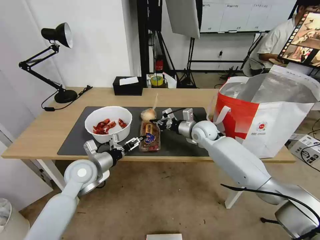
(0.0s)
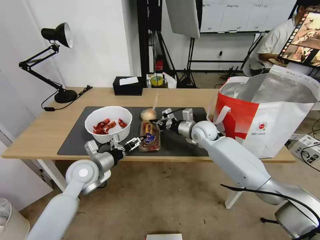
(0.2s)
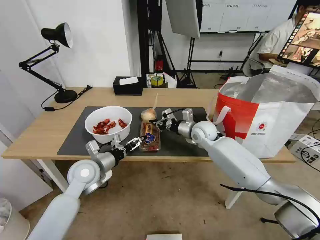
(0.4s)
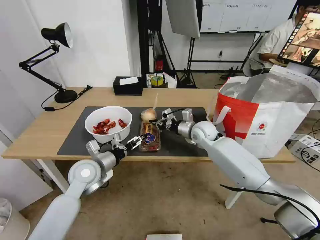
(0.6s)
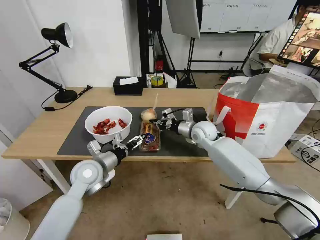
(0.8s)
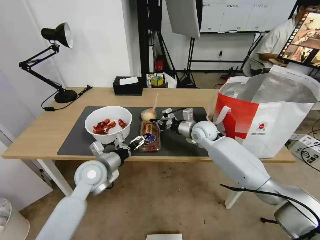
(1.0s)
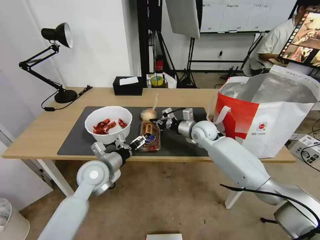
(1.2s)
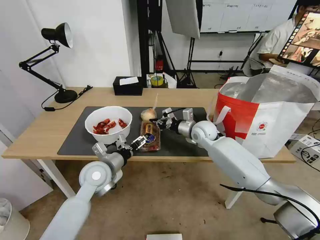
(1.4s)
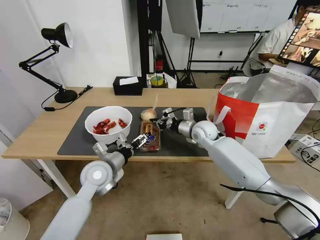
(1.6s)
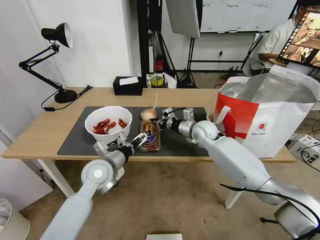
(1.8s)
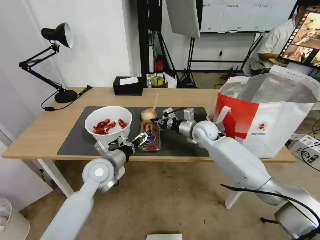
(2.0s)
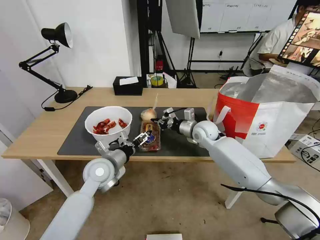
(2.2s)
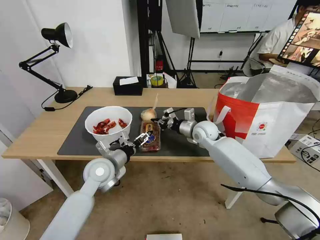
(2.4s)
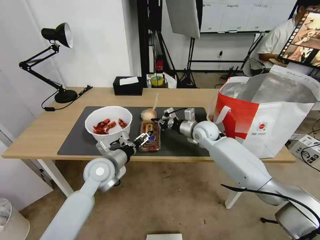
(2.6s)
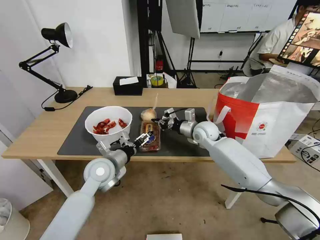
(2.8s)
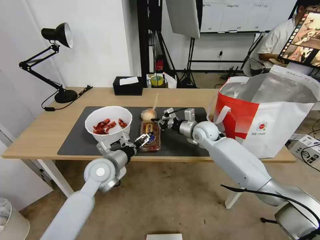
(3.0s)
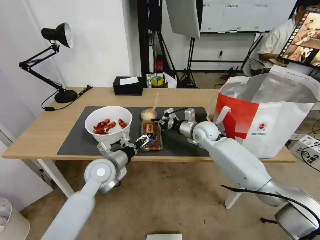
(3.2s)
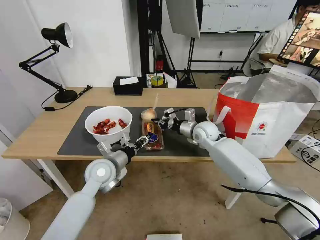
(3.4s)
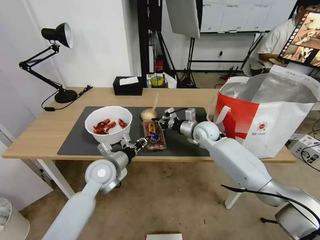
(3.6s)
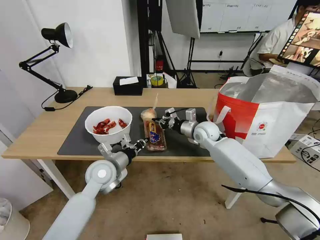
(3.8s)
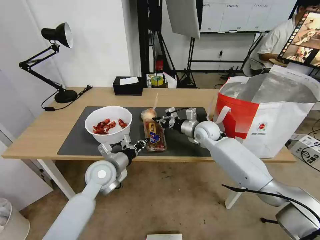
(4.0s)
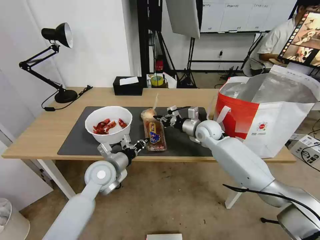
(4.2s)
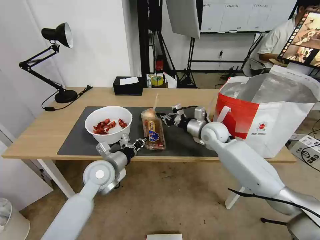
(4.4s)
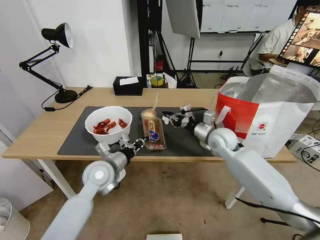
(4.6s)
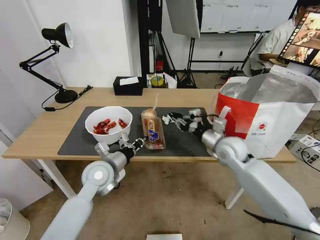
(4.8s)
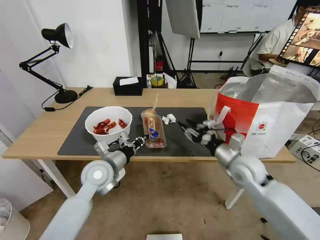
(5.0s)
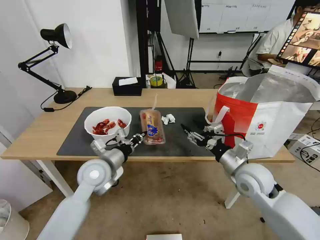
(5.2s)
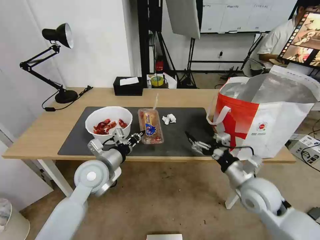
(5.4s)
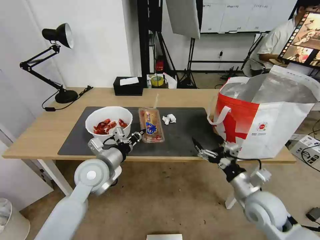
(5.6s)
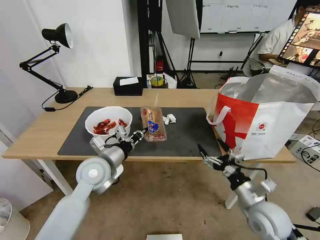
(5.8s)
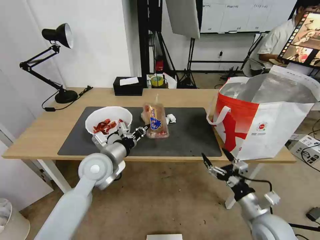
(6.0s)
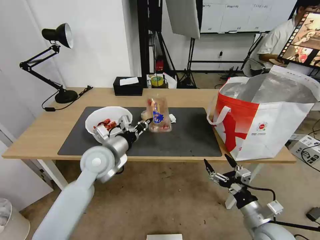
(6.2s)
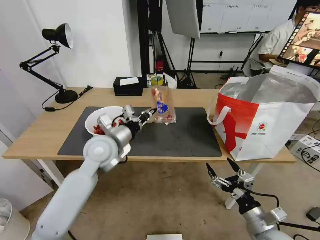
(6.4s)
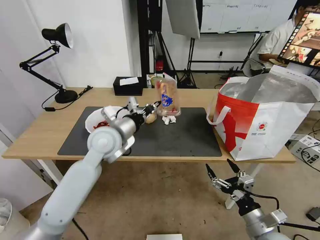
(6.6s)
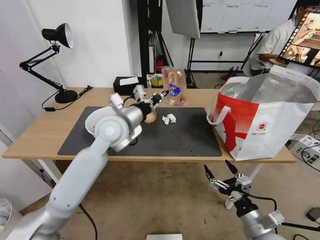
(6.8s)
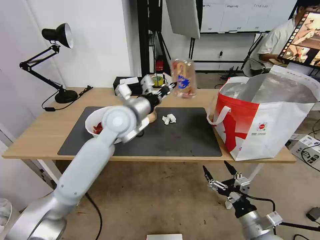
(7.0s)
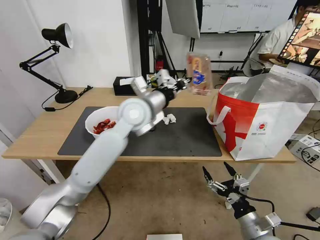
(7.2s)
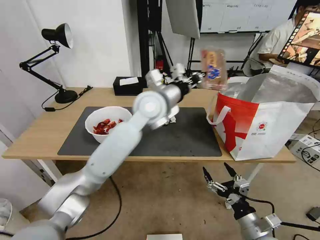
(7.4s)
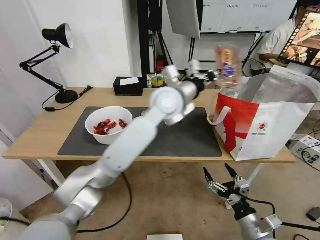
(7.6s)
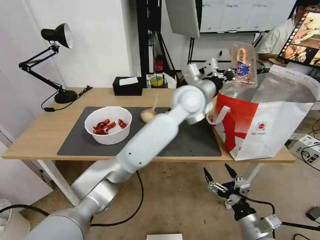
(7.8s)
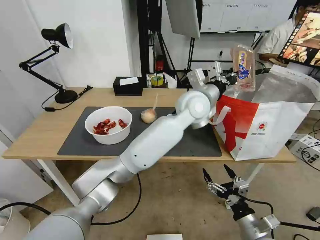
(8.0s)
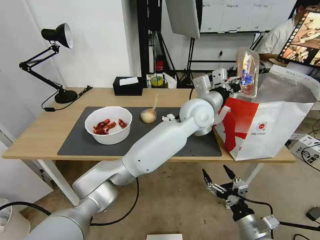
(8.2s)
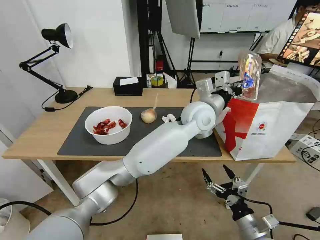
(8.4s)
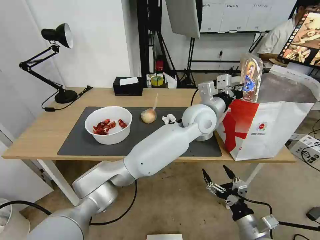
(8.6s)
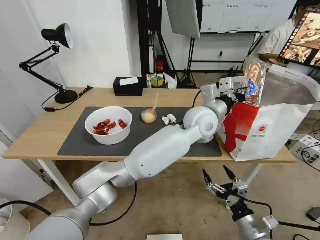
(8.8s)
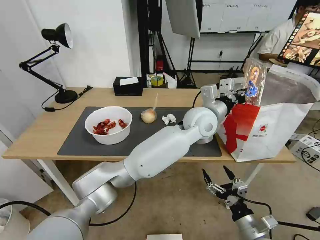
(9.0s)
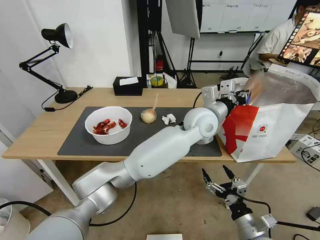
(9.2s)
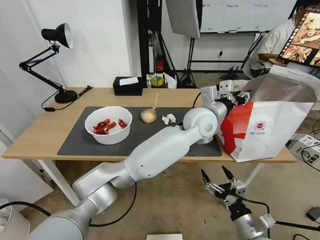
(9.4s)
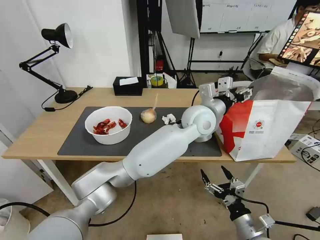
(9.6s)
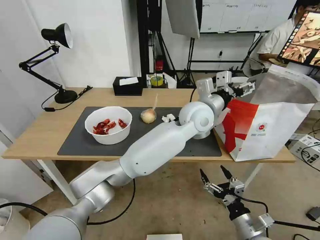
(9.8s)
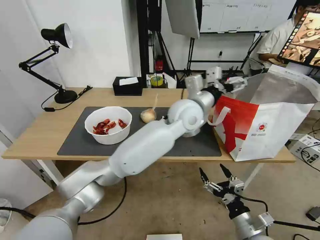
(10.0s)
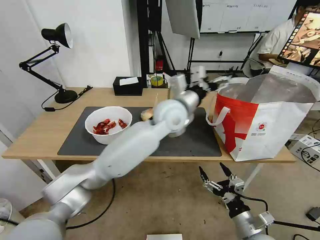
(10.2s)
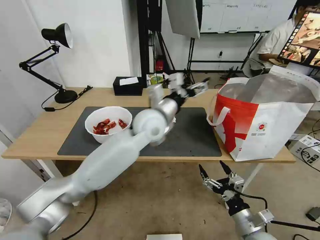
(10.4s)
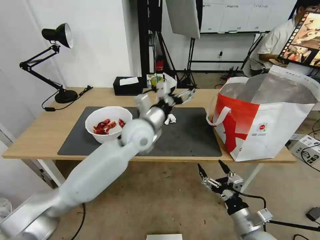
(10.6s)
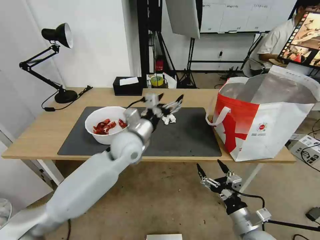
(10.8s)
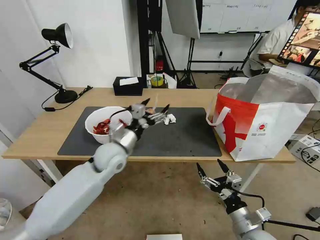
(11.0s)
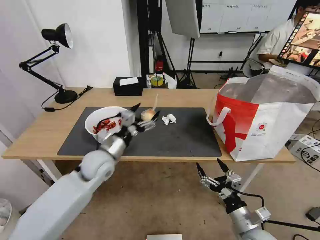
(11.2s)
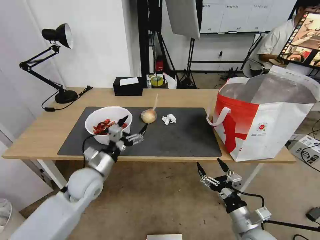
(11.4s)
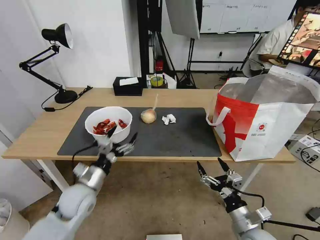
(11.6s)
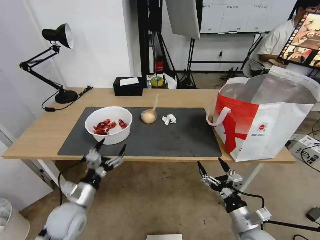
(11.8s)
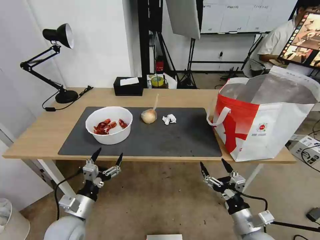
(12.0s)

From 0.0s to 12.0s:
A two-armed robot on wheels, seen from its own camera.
Task of the whole recording: Pick up the trash from the table and place it into the takeout bag.
From 0.0s to 1.6s: The left gripper moves to the right, some 5 cm.
From 1.6s to 3.0s: Neither gripper changes place.
From 3.0s to 4.4s: The left gripper closes its fingers.
From 4.4s to 6.0s: The right gripper travels backward by about 30 cm, and opens its fingers.
From 6.0s to 7.6s: The left gripper goes about 30 cm to the right, upward and forward. The right gripper heads backward, covering approximately 5 cm.
From 7.6s to 9.0s: The left gripper shifts approximately 10 cm to the right and downward.
From 9.0s to 10.4s: The left gripper is displaced to the left by some 15 cm, and opens up.
From 10.4s to 12.0s: The left gripper heads to the left, backward and downward, covering about 40 cm.

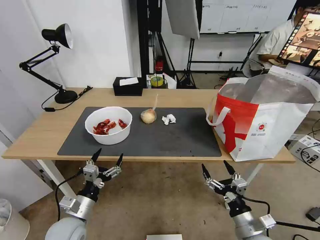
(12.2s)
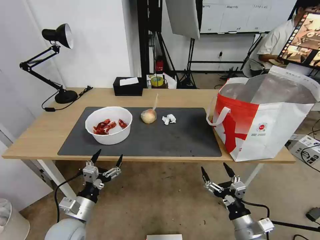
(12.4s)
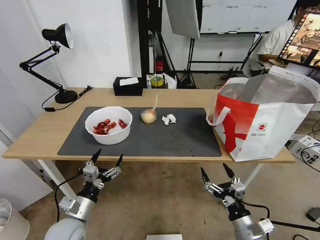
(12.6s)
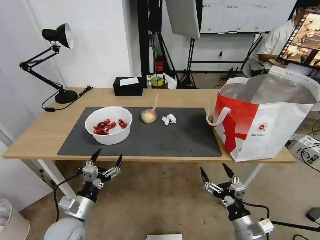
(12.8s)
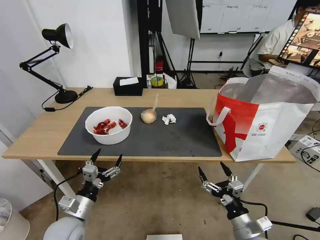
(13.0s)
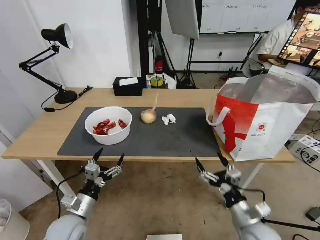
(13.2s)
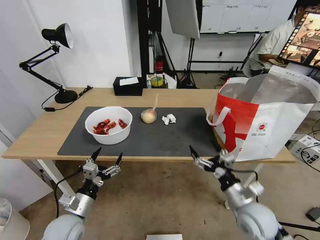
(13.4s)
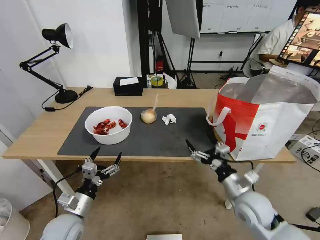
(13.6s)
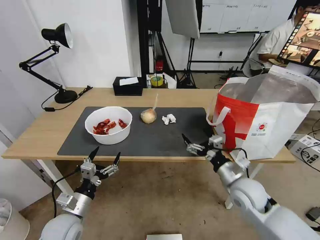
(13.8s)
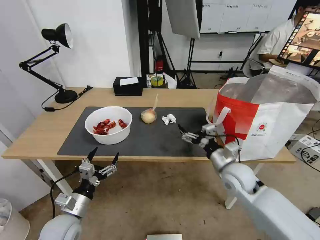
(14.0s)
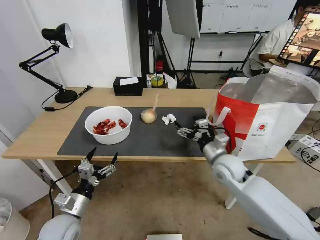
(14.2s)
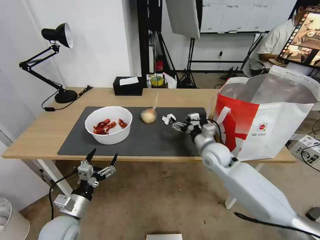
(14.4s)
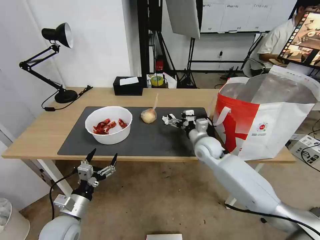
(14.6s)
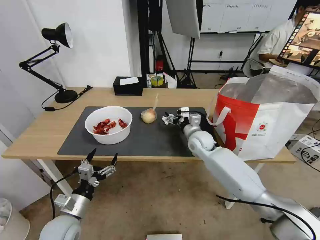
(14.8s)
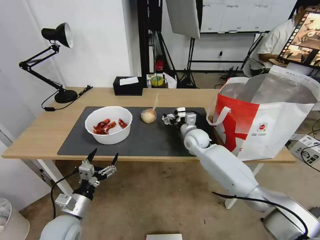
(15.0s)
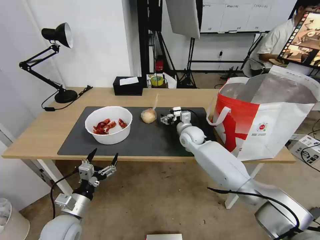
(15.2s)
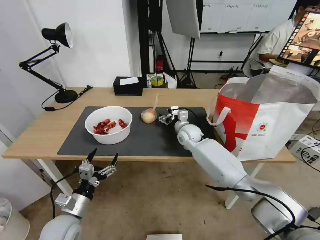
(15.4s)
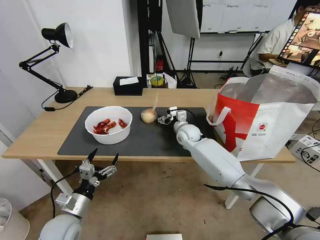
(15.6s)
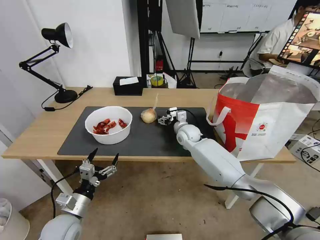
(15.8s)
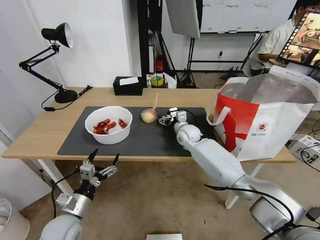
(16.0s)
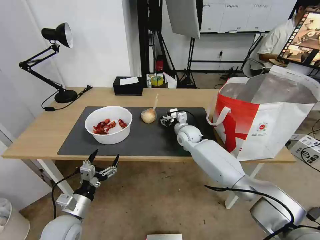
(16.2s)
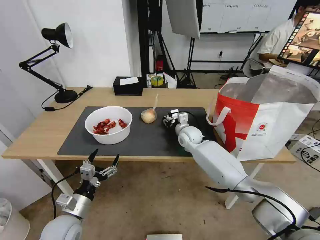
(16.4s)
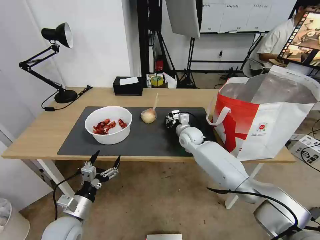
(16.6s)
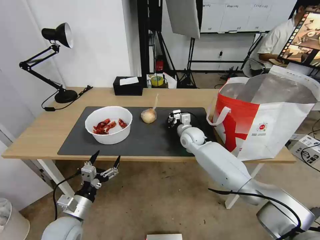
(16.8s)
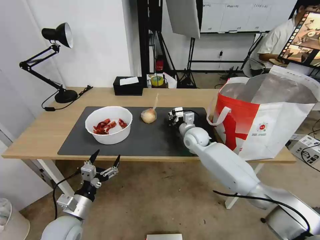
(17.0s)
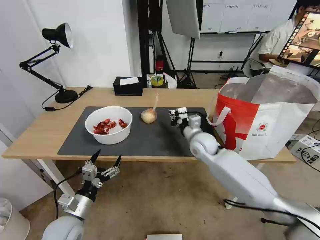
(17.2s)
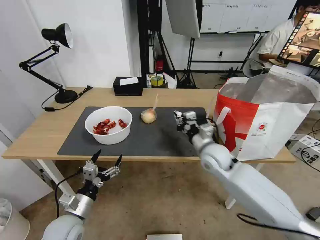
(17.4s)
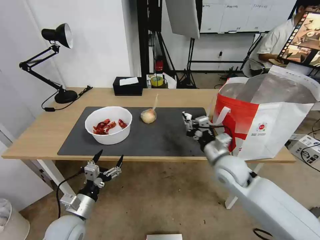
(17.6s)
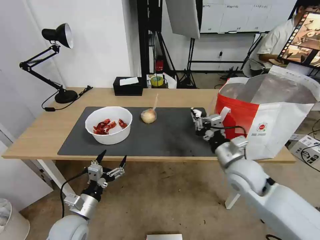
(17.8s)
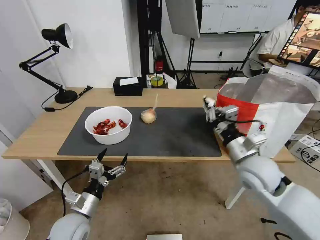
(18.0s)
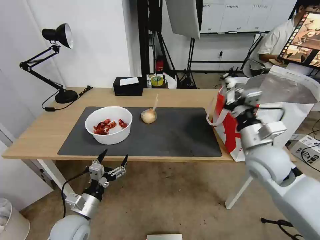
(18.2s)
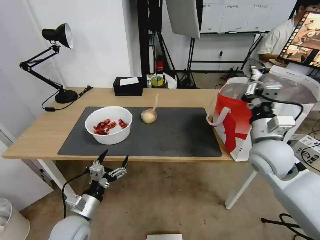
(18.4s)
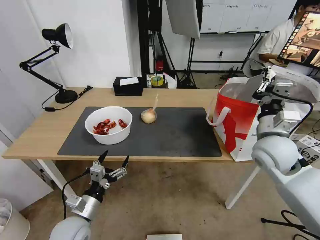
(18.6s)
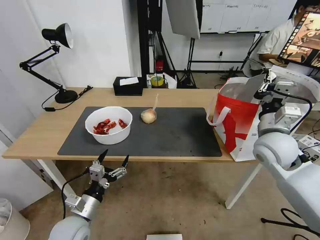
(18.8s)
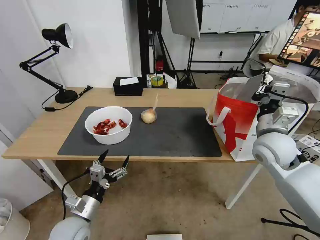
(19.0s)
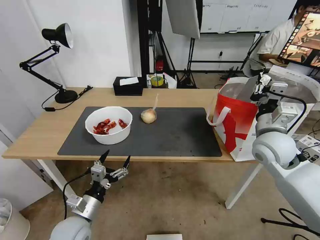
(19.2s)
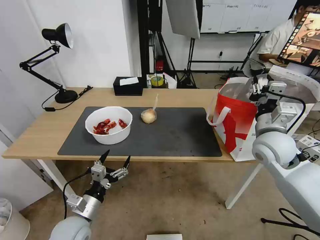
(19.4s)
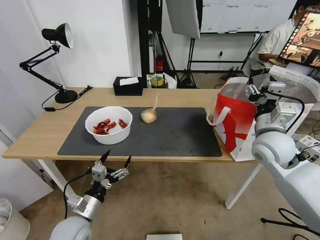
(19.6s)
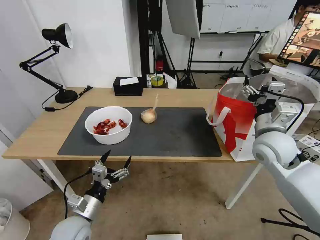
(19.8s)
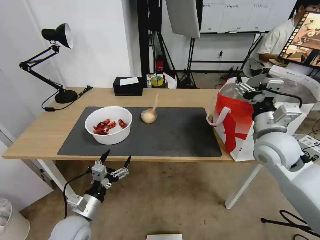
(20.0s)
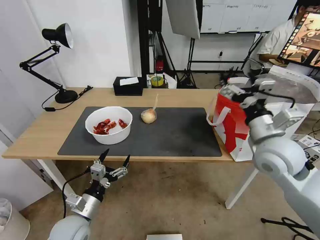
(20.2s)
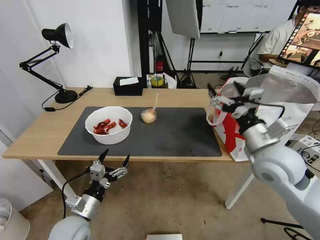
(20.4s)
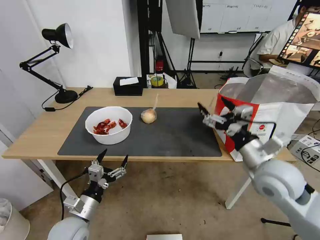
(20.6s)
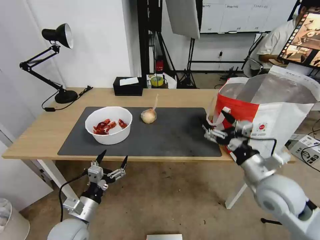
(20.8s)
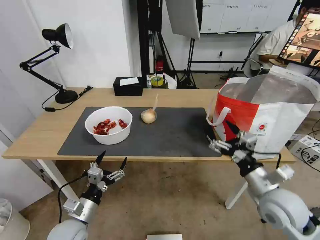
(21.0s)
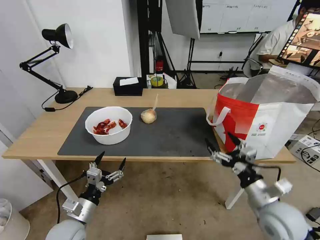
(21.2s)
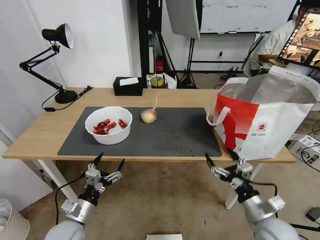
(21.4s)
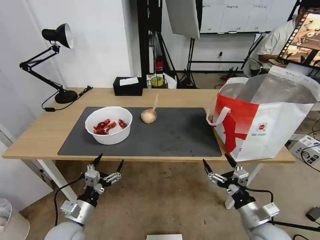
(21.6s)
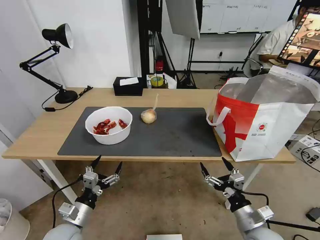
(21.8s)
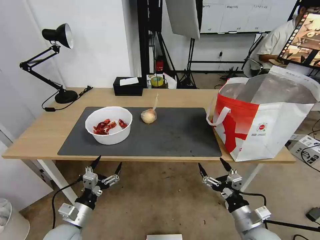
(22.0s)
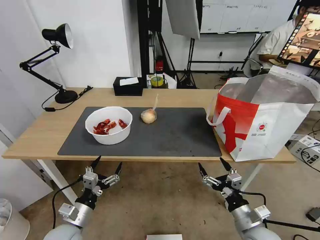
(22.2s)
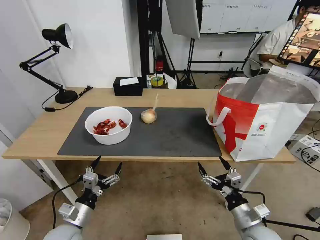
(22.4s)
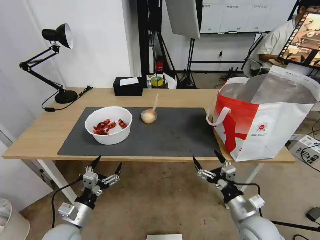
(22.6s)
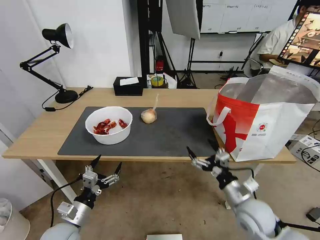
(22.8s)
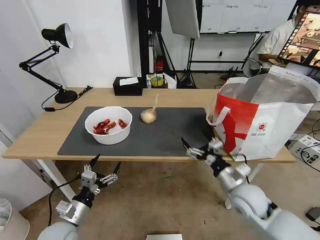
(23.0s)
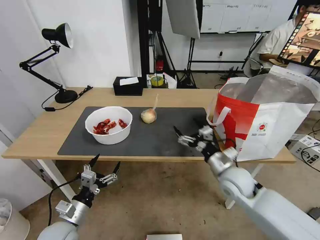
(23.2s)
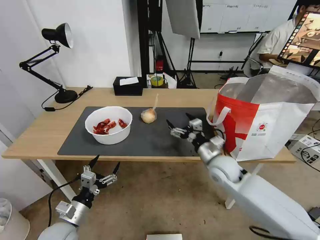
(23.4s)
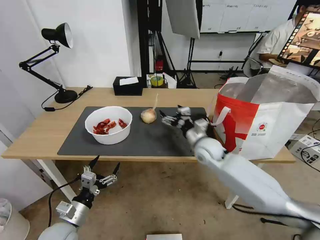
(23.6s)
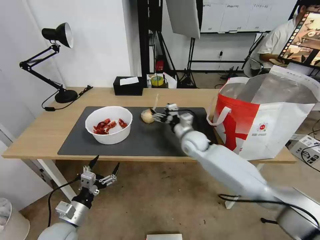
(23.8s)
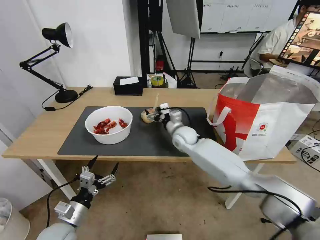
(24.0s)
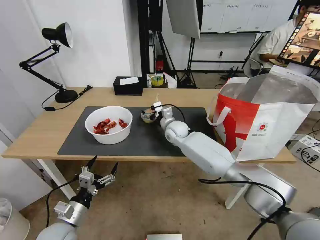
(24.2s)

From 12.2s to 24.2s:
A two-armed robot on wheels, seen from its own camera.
Task of the whole recording: Pick up the trash from the table and place it into the takeout bag.
From 12.2s to 13.8s: The right gripper goes some 15 cm forward and upward.
From 13.8s to 15.2s: The right gripper is displaced forward and to the left by about 30 cm.
From 15.2s to 16.6s: The right gripper closes its fingers.
From 16.6s to 18.2s: The right gripper is displaced backward, to the right and upward by roughly 30 cm.
From 18.2s to 19.8s: The right gripper shifts by approximately 5 cm, and opens.
From 19.8s to 21.2s: The right gripper goes about 20 cm backward and downward.
From 21.2s to 22.6s: The right gripper is displaced downward by about 5 cm.
From 22.6s to 24.2s: The right gripper is displaced forward and to the left by roughly 40 cm.
